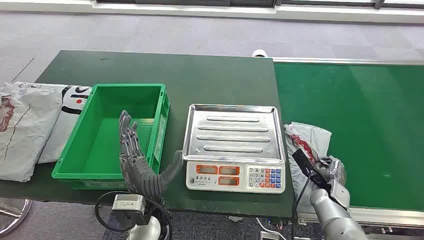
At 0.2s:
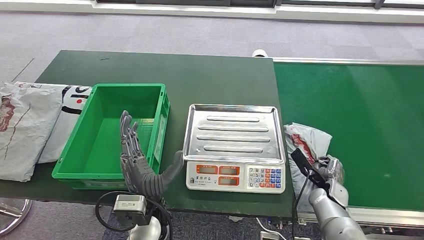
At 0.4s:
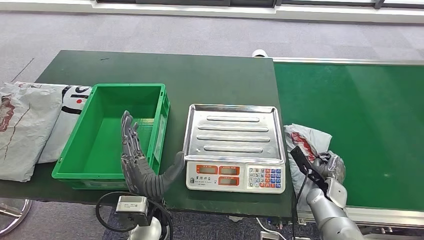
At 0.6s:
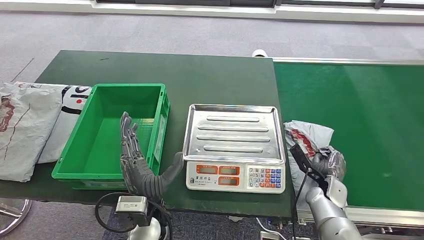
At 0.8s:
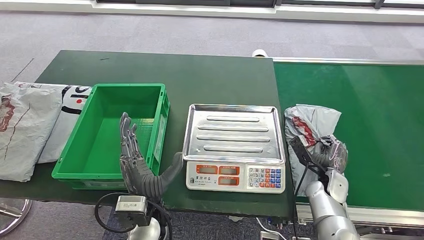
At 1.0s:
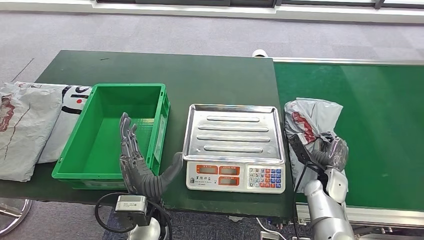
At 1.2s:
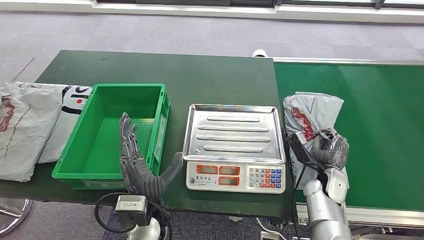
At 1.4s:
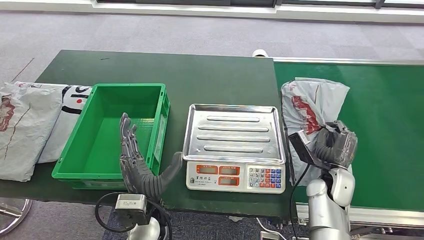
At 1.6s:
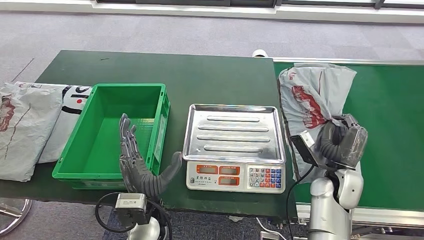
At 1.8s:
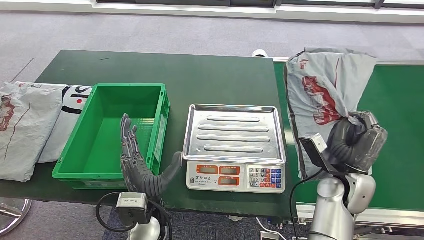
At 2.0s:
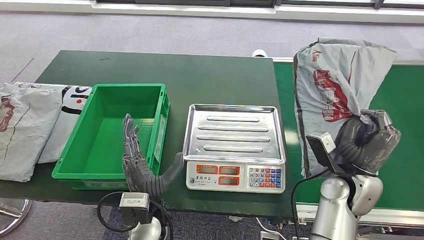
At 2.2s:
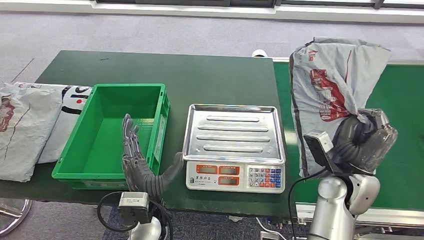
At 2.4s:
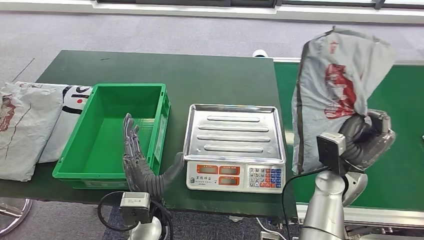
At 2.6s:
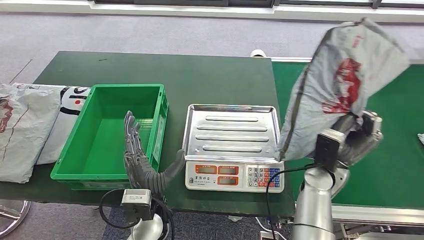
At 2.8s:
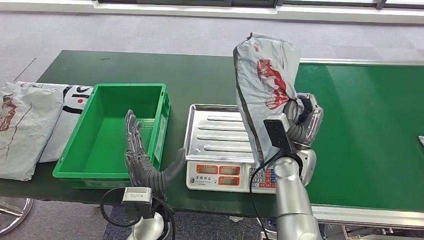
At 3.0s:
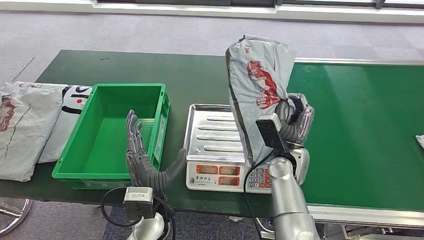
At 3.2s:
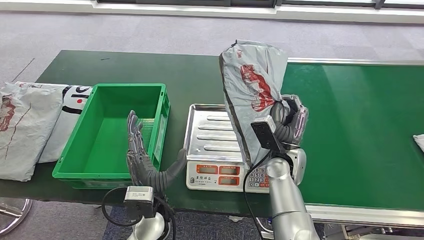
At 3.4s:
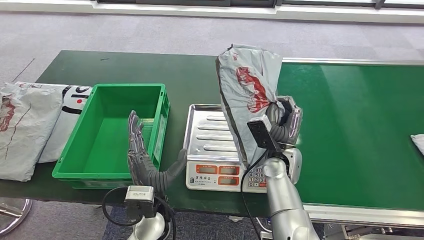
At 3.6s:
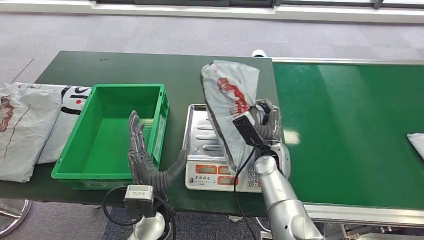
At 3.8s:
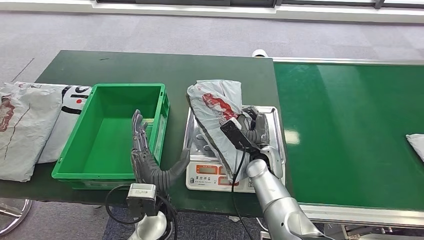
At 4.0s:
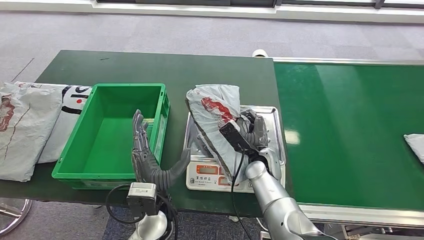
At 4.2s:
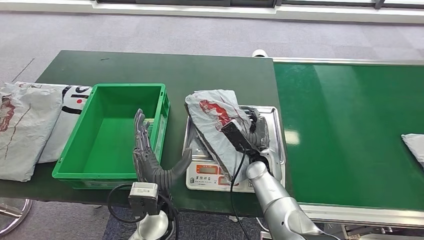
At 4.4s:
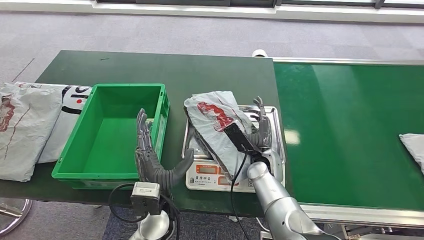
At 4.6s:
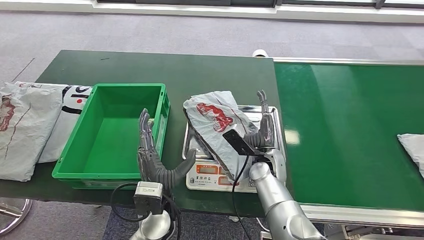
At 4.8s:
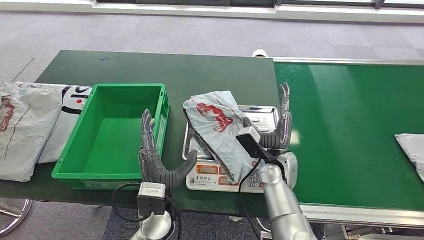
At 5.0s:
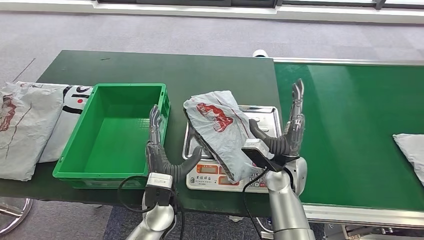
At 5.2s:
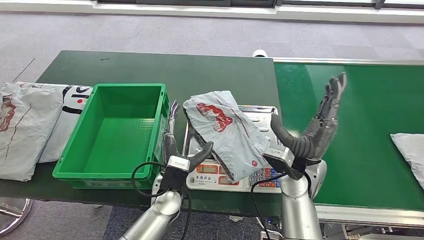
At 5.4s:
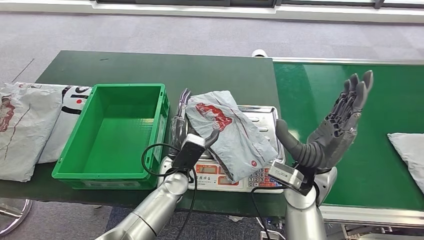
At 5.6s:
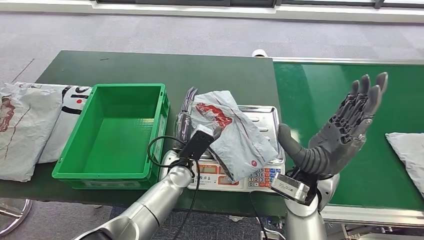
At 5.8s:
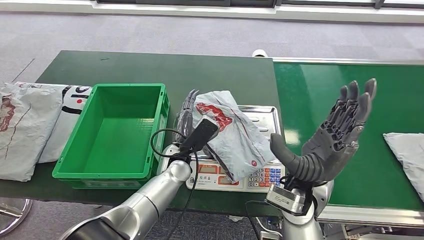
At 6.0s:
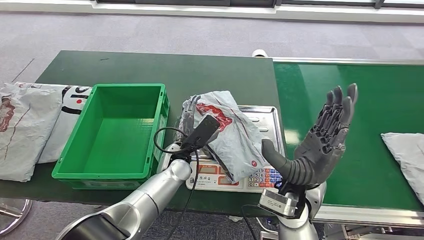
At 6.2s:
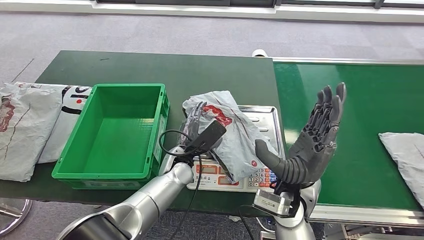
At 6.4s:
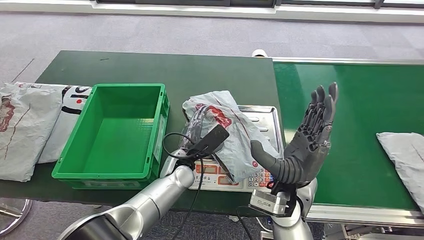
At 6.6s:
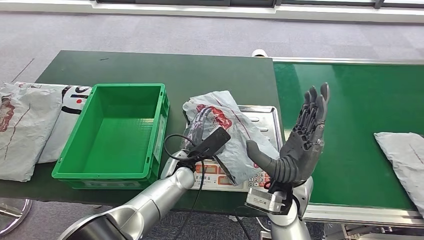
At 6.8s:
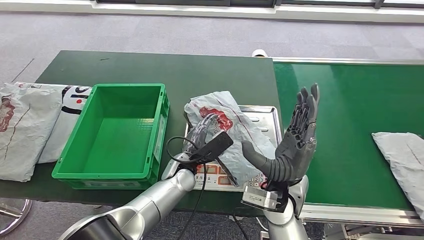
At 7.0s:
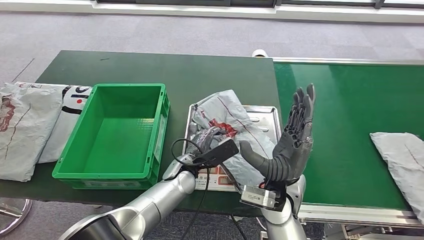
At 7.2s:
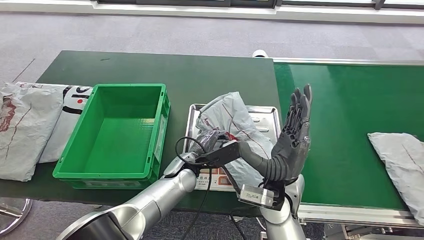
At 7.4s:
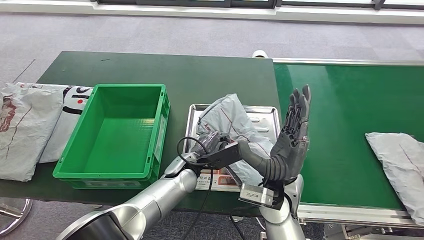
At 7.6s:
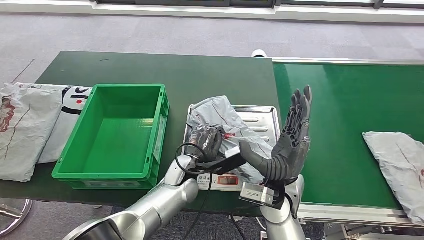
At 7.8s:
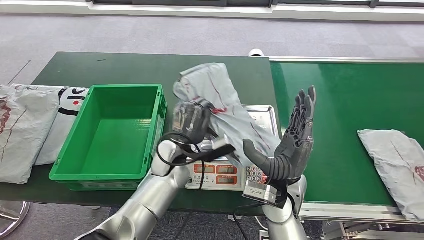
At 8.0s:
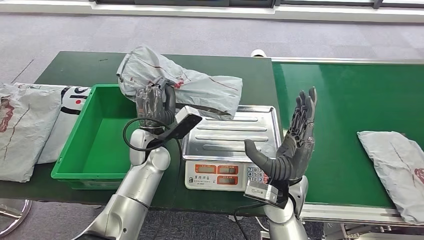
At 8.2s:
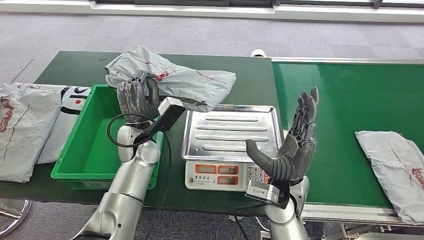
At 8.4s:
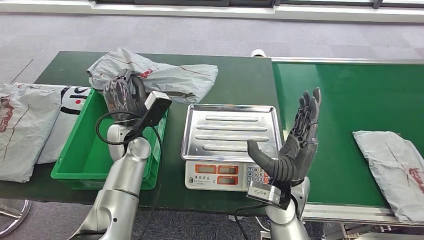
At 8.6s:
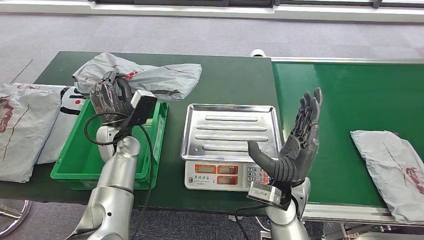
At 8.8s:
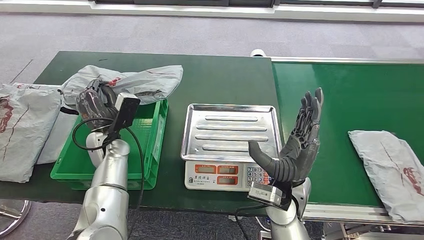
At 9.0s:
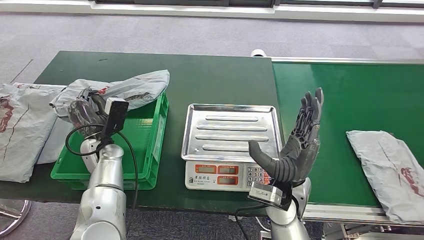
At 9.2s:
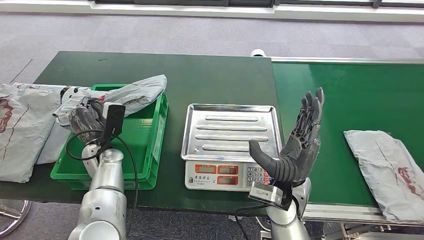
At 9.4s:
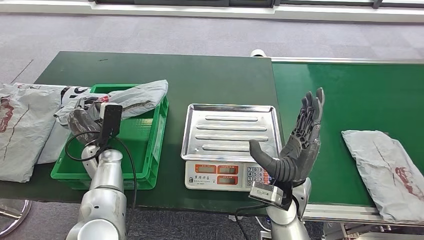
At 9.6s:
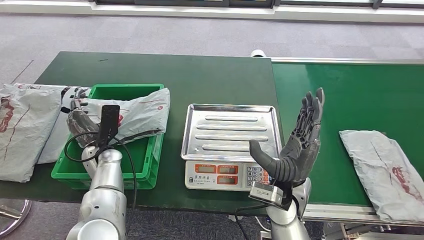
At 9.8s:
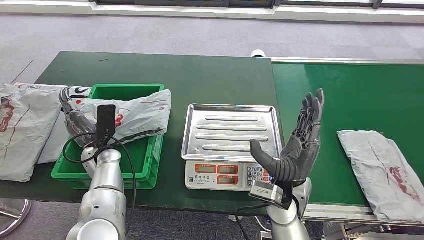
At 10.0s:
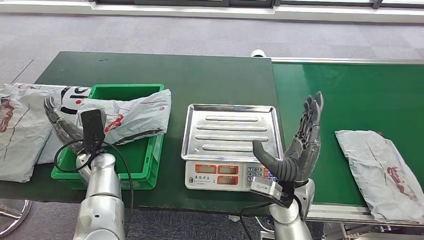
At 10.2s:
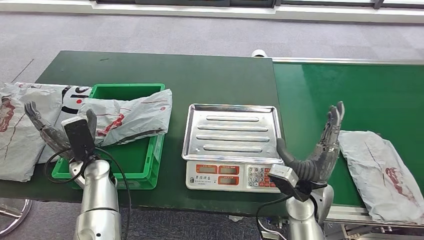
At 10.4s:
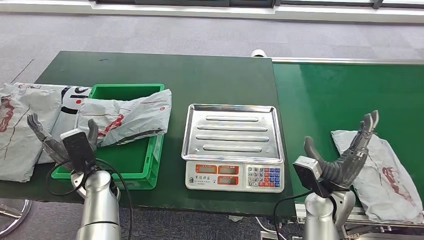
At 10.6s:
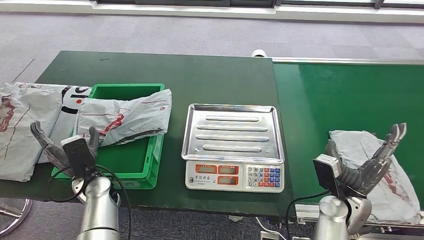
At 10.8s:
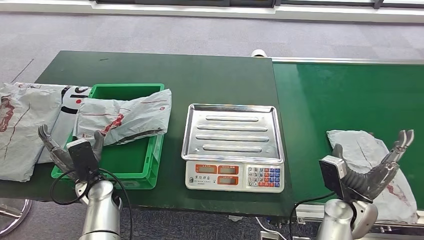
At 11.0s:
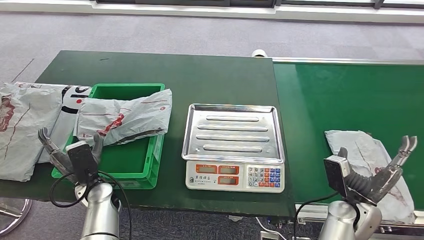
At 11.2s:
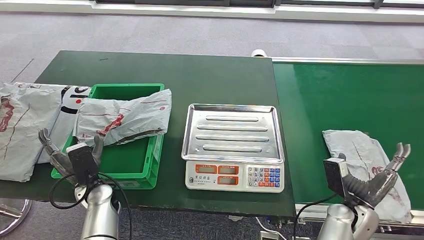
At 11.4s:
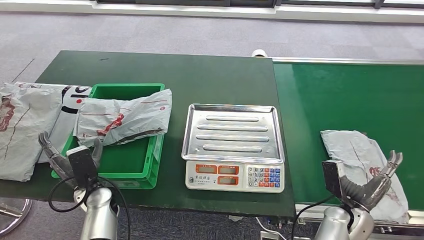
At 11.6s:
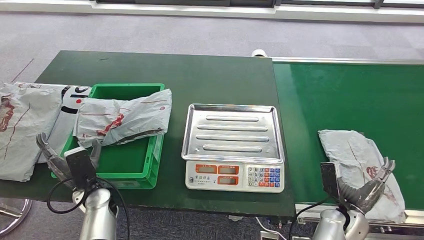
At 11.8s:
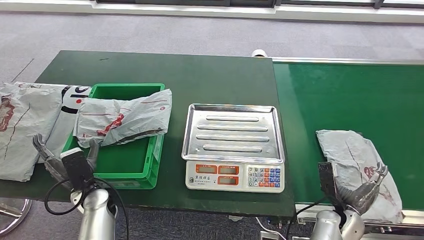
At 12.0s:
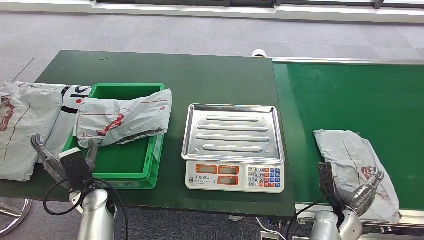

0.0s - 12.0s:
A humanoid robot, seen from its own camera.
Step, 0.0s - 2.0s: Take the parcel off the conveyor belt.
Step, 2.2s - 6.0s: Place the parcel onto the inbound machine.
Step, 6.2s - 8.8s: Pick up the parcel from the inbound machine.
Step, 9.0s - 11.0s: Put the parcel inside the courier box.
1.6s - 3.0s: The right hand shifts some 10 cm to the left.
3.0s - 4.4s: The right hand goes some 5 cm downward.
4.4s - 6.0s: The right hand heads upward and backward, covering approximately 15 cm, while the left hand moves forward, approximately 10 cm.
10.4s - 12.0s: The right hand goes some 10 cm downward and to the right, while the left hand ends up about 5 cm from where it was.

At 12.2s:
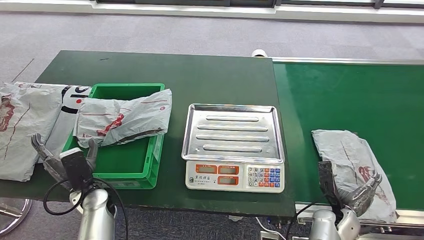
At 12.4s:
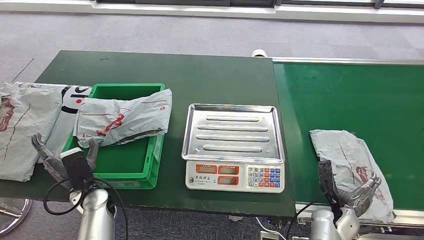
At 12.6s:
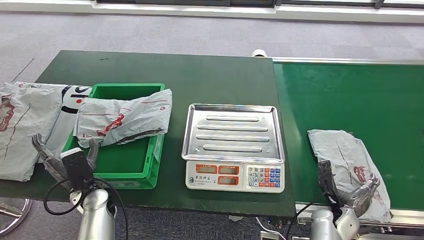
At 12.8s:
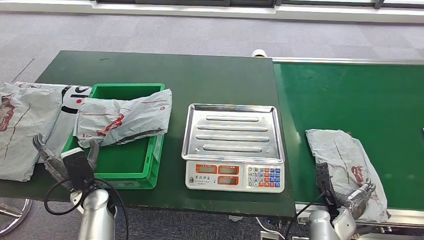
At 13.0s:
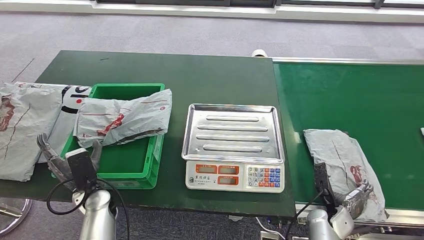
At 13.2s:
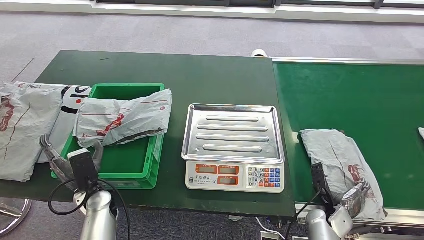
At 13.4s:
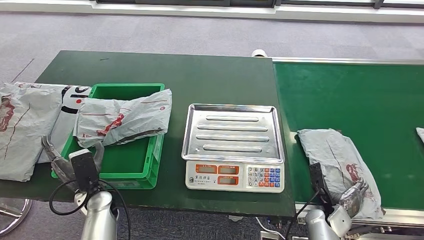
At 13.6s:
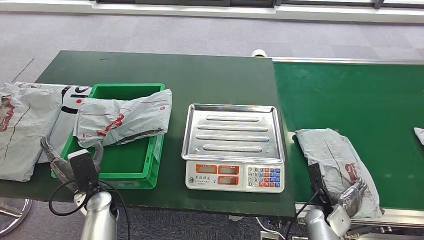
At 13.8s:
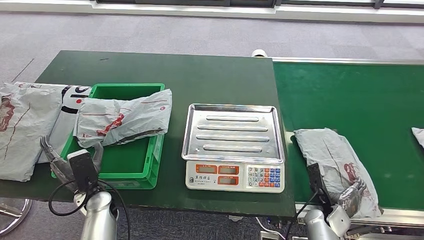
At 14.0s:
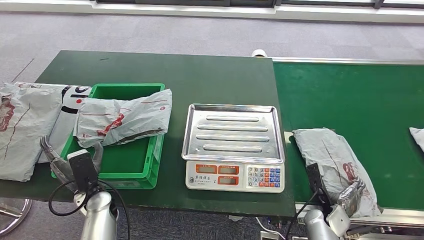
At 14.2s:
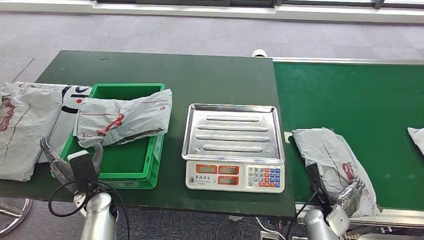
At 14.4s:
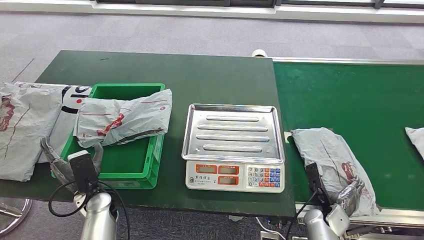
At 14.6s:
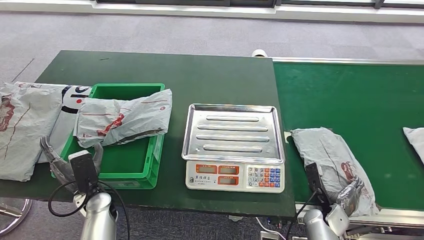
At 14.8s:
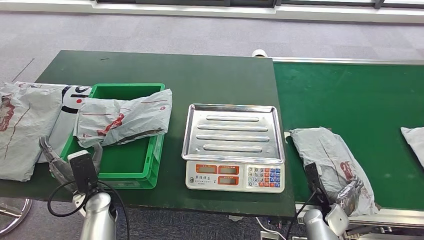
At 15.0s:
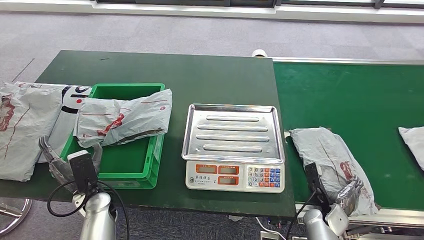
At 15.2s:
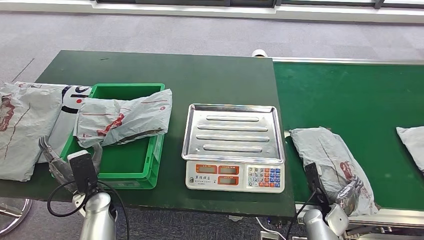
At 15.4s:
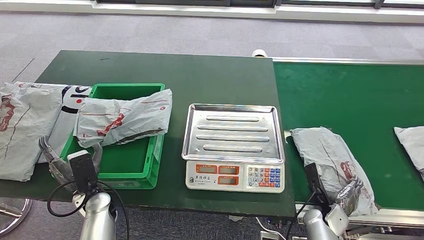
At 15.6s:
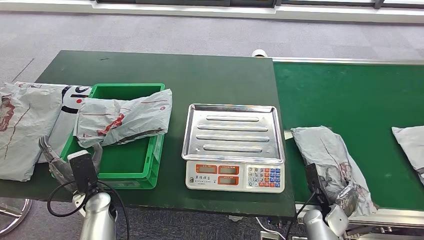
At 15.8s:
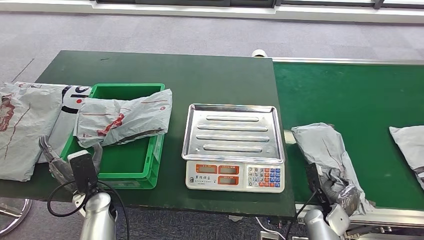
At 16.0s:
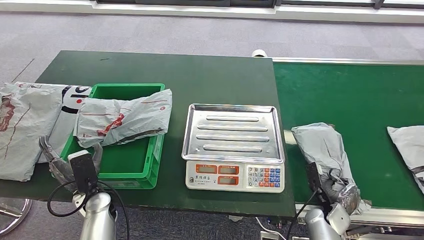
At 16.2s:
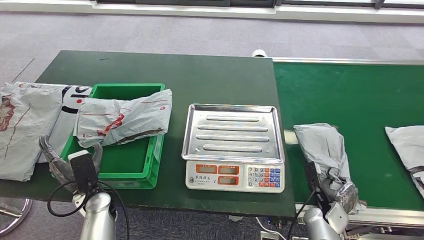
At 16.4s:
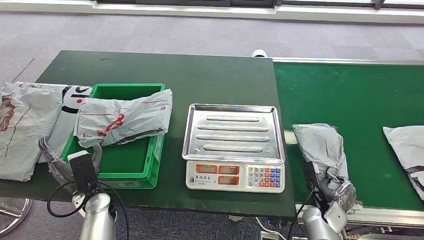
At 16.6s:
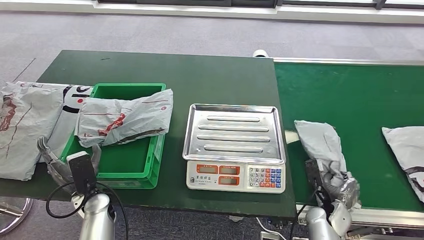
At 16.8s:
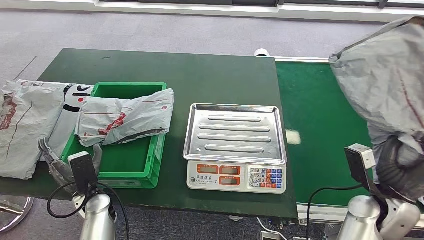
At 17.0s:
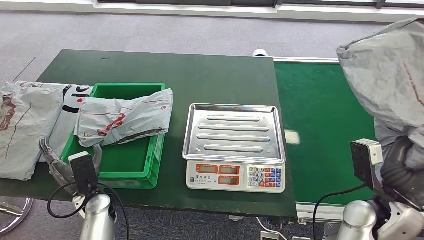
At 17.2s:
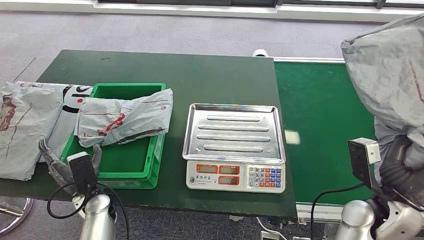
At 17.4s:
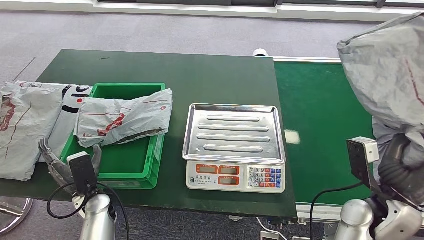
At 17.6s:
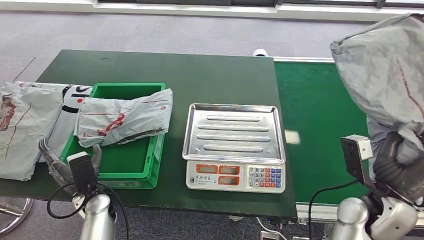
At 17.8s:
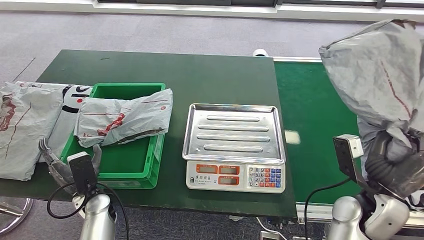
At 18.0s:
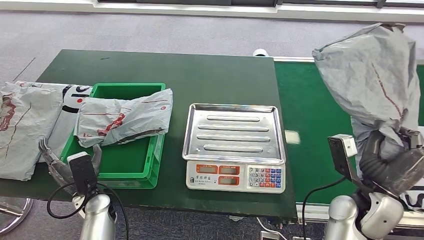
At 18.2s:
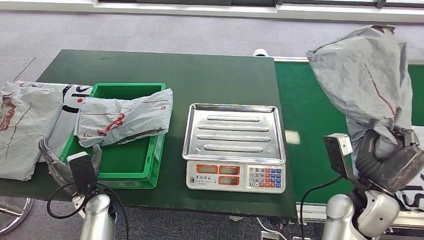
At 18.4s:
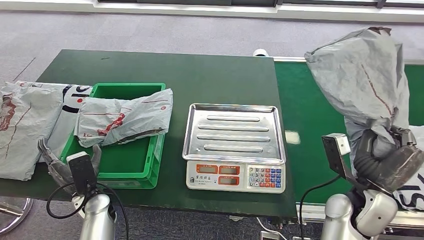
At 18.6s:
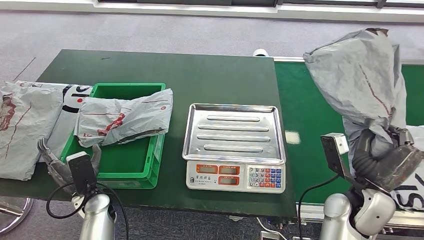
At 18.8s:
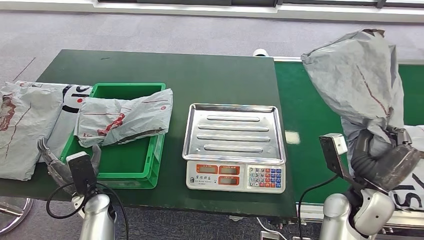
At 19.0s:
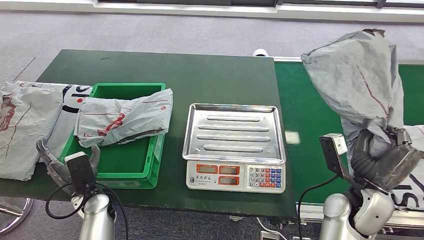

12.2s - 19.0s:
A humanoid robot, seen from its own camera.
Step, 12.2s - 17.0s: Pick up the parcel from the conveyor belt.
12.2s - 13.6s: There are only small adjustments of the hands.
13.6s - 16.2s: The two hands keep their place.
17.6s - 19.0s: There are only small adjustments of the hands.
